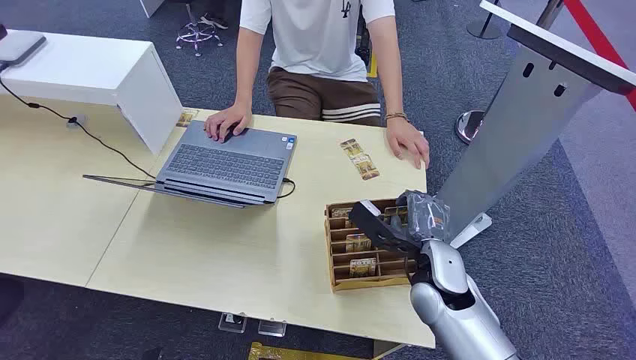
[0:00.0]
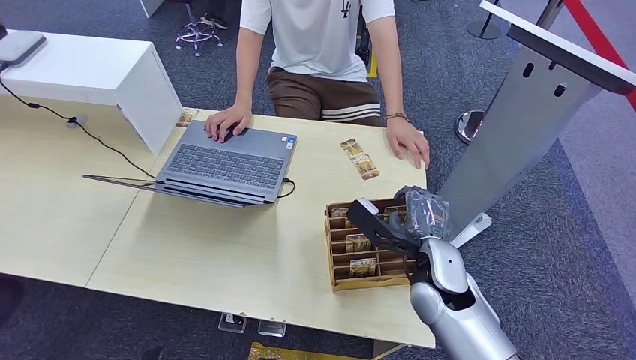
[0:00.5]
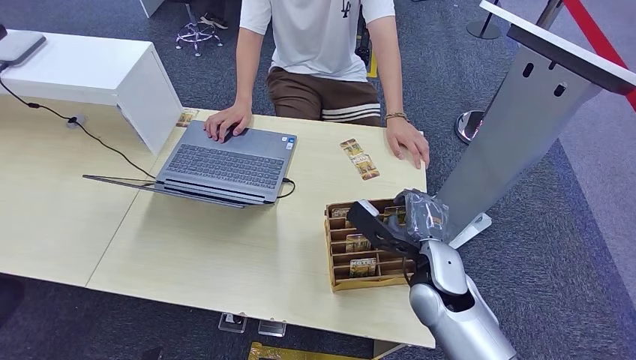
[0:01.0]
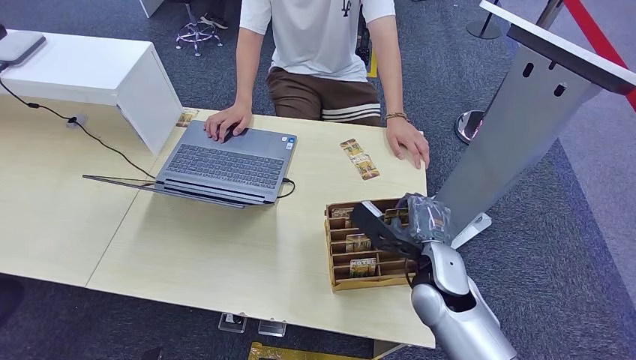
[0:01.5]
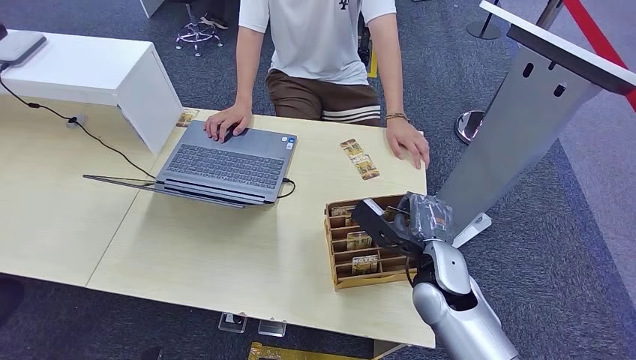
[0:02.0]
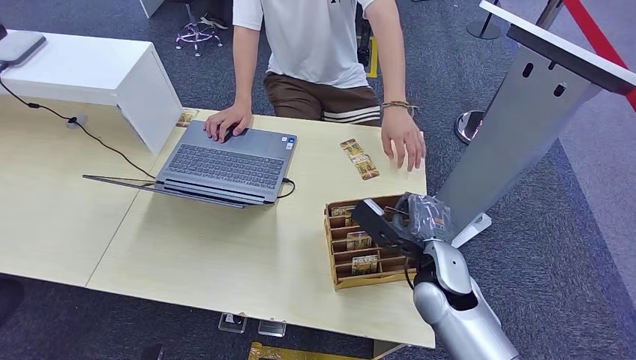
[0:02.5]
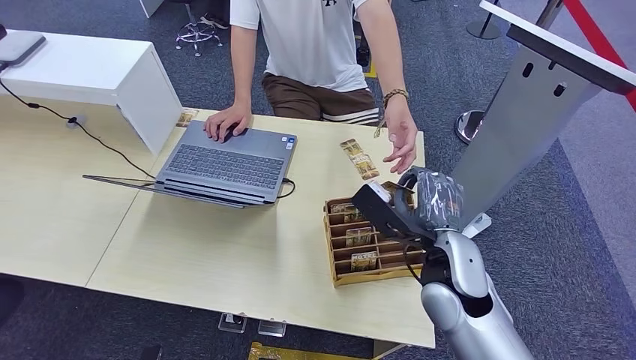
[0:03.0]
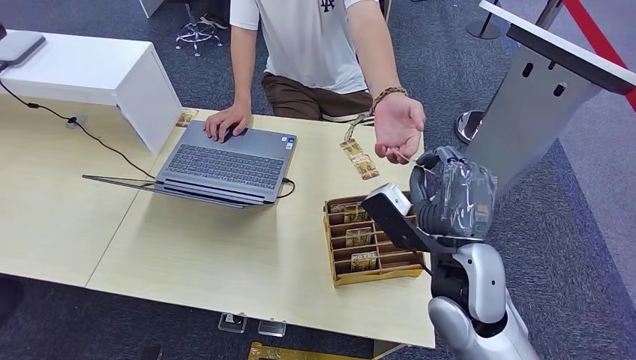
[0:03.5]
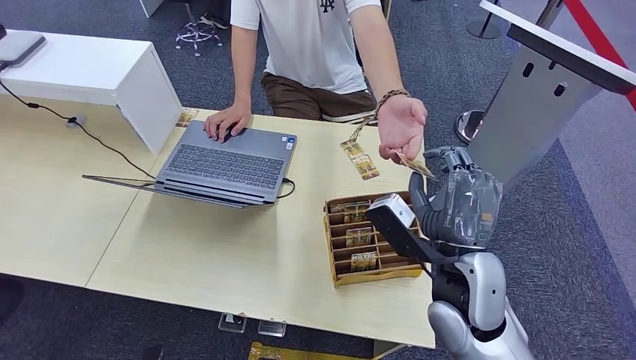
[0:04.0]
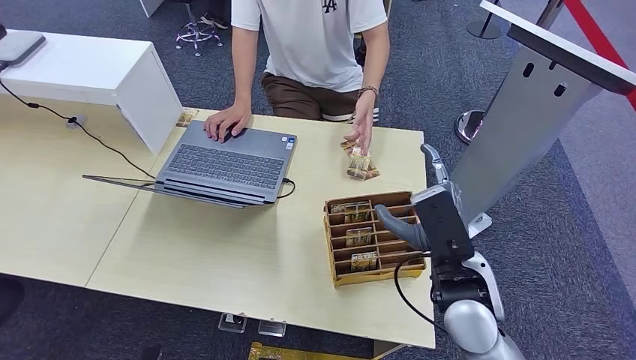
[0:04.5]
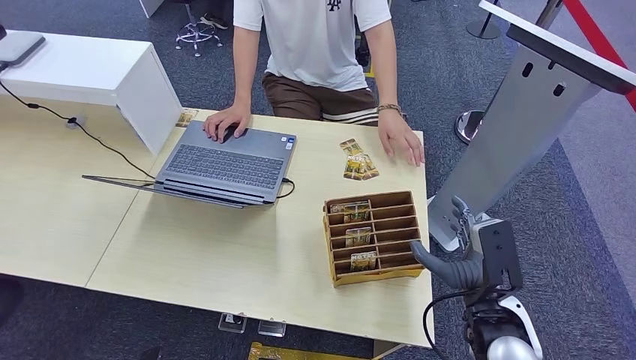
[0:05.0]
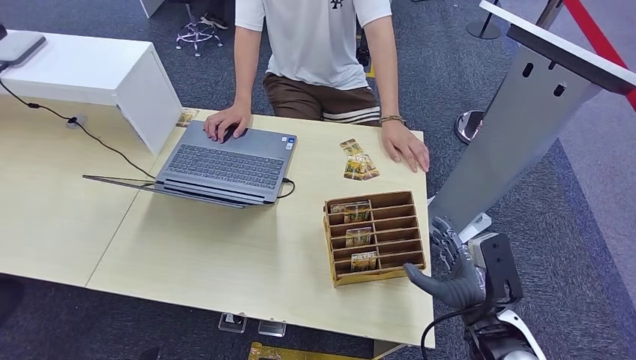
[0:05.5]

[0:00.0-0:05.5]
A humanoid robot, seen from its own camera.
Task of the whole recording: Pick up the card and hand it over to the target person.
Step, 0:00.0 to 0:02.5: Pick up the key card from the card box.
Step, 0:03.5 to 0:05.5: Hand the key card to the target.
0:02.0 to 0:03.5: The right hand moves upward, approximately 10 cm.
0:03.5 to 0:05.5: The right hand heads downward, to the right and backward, covering roughly 15 cm.
